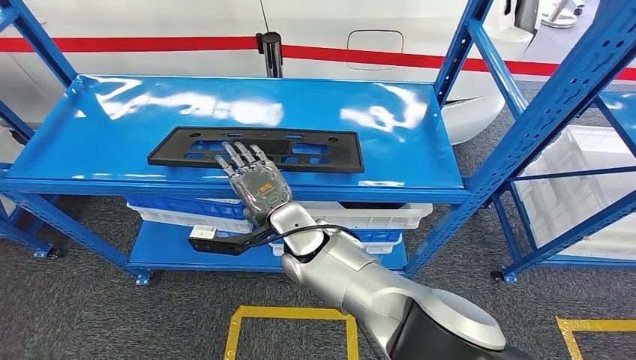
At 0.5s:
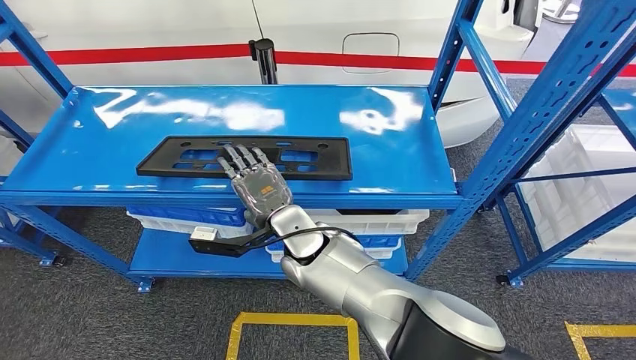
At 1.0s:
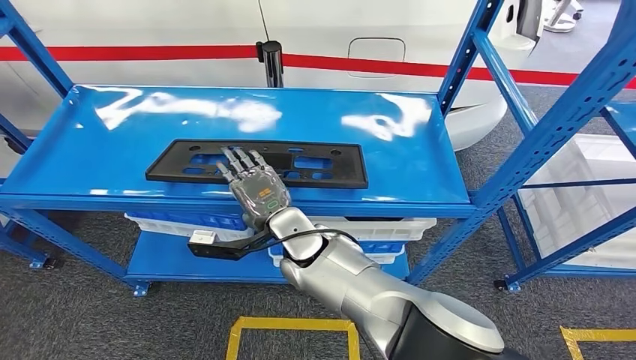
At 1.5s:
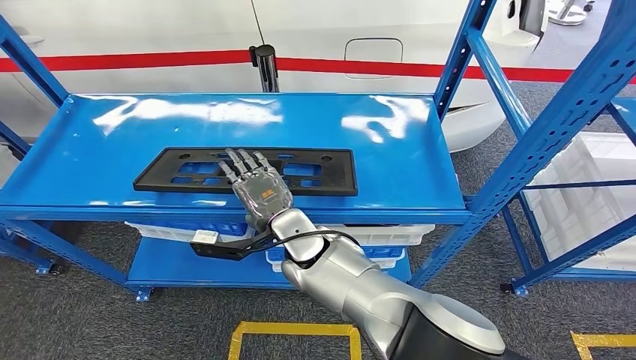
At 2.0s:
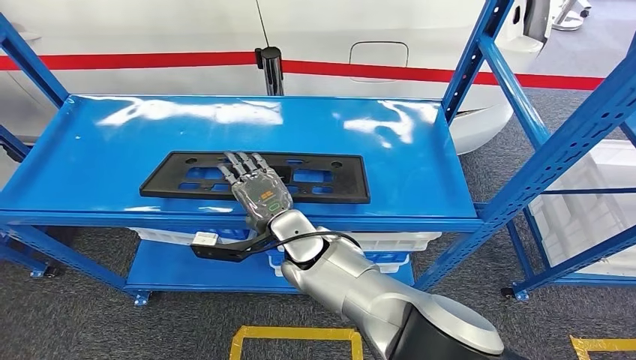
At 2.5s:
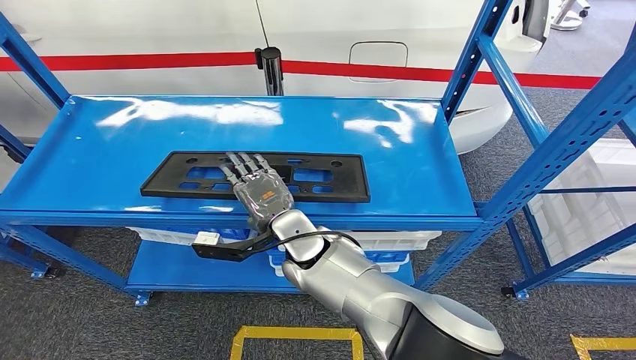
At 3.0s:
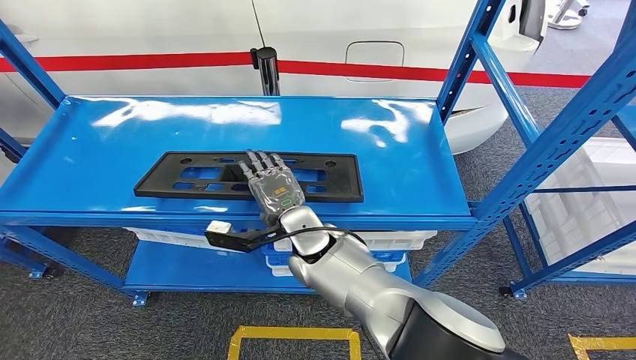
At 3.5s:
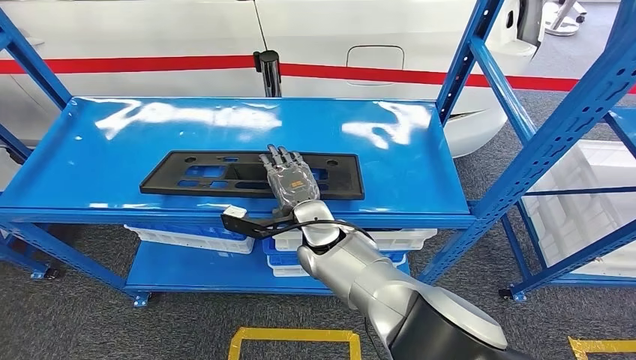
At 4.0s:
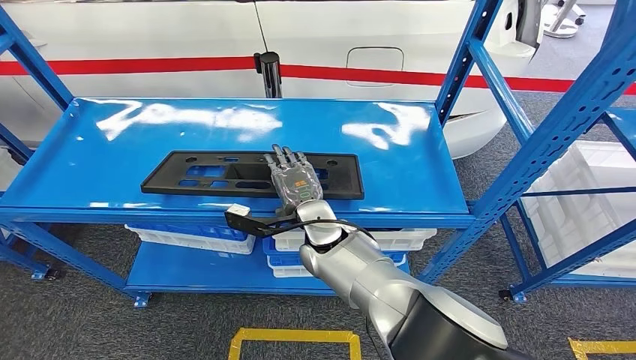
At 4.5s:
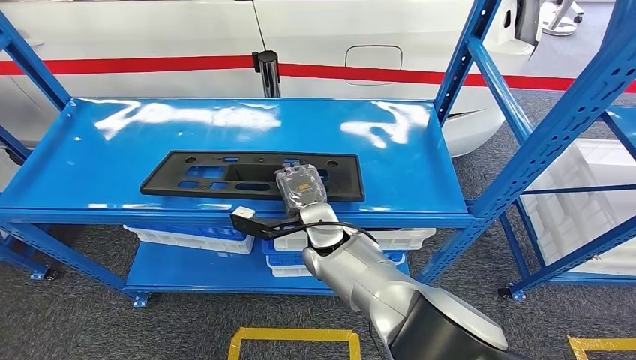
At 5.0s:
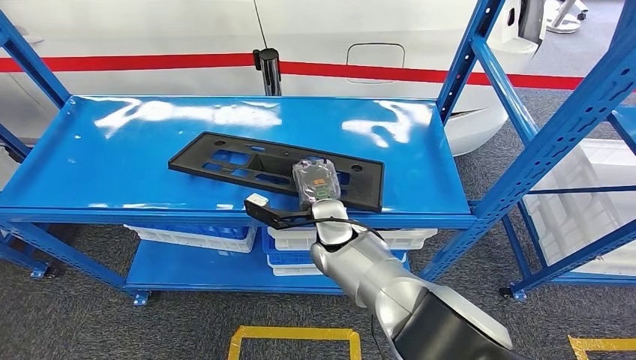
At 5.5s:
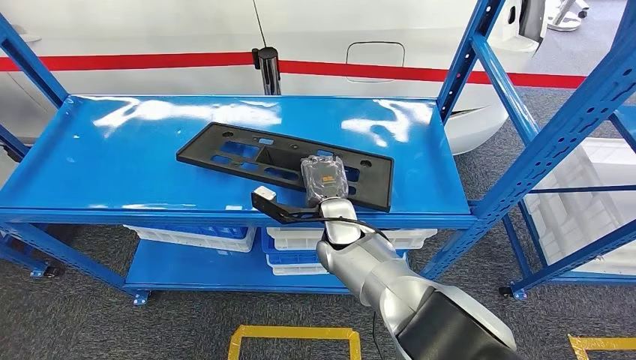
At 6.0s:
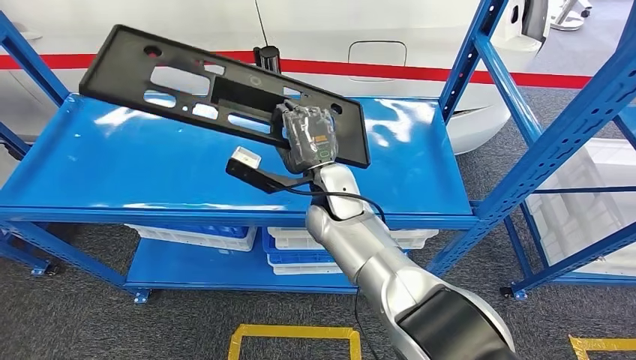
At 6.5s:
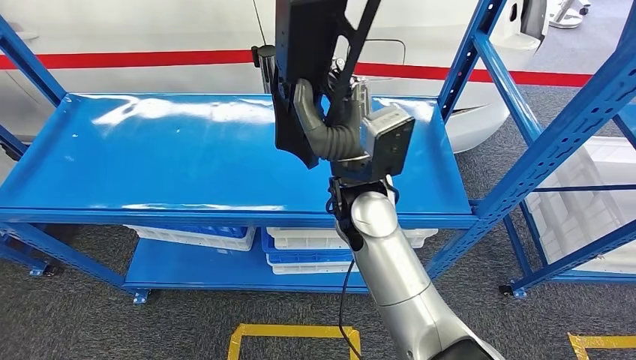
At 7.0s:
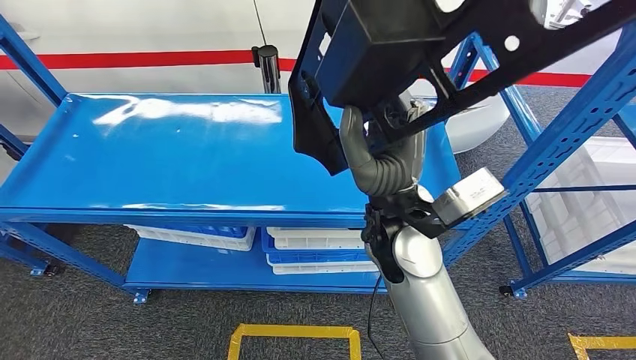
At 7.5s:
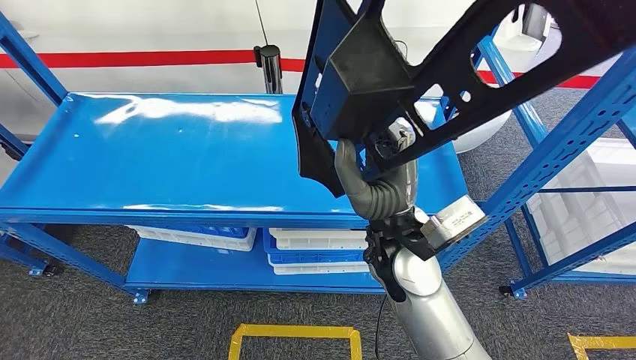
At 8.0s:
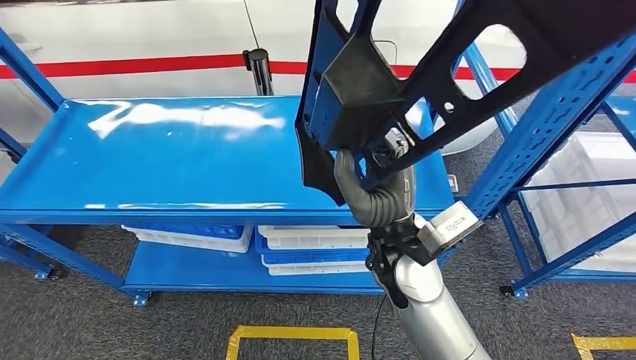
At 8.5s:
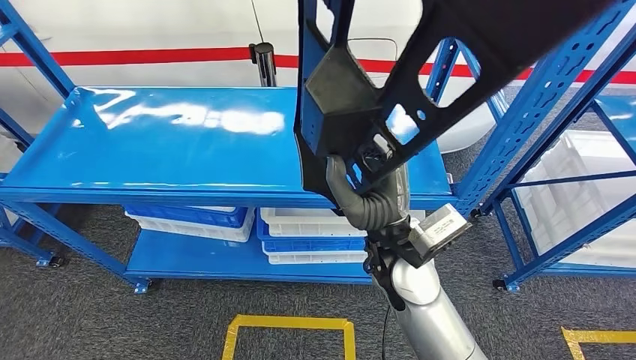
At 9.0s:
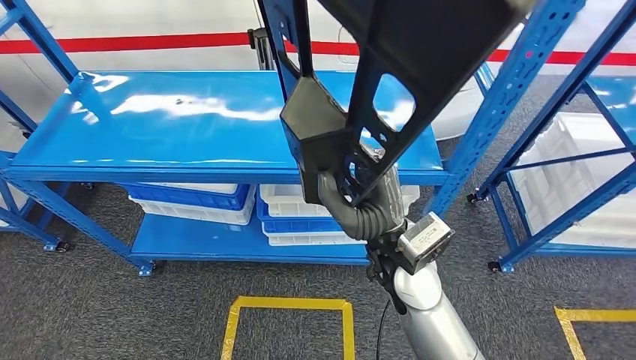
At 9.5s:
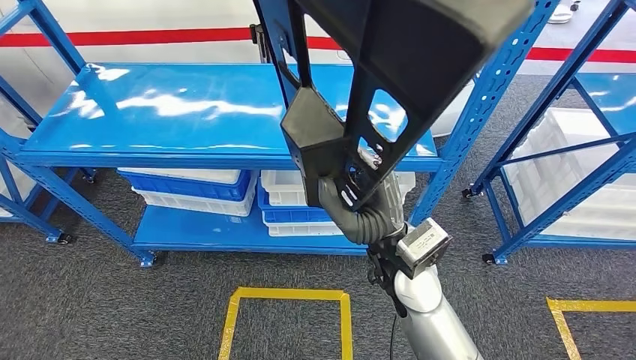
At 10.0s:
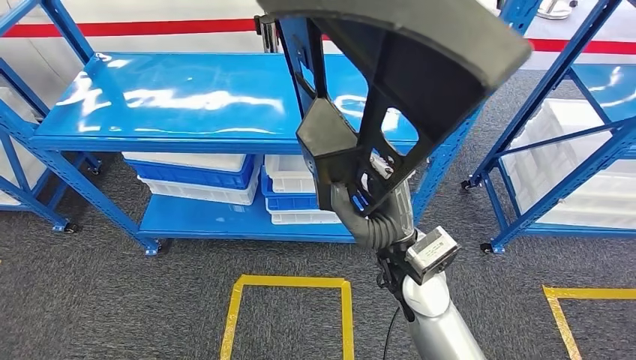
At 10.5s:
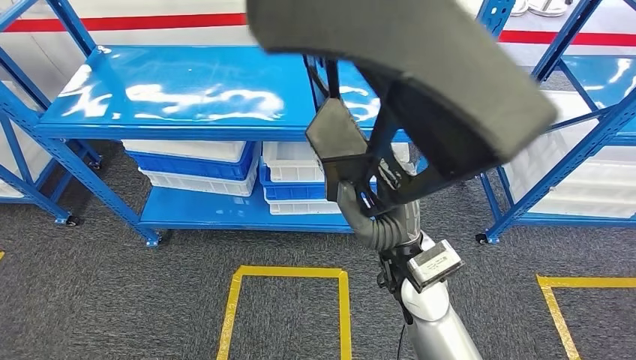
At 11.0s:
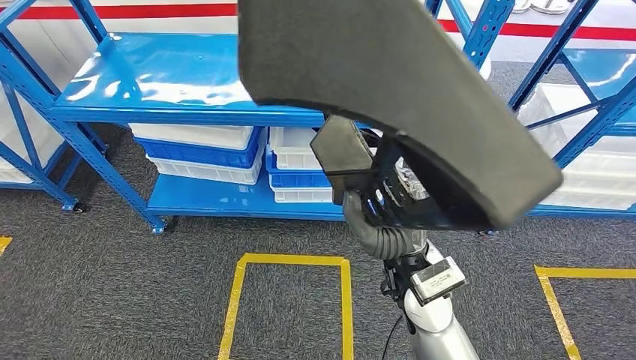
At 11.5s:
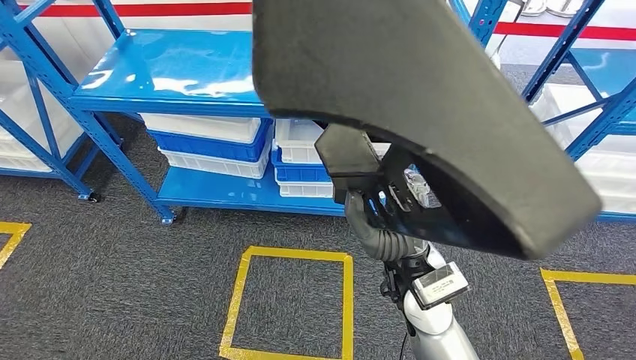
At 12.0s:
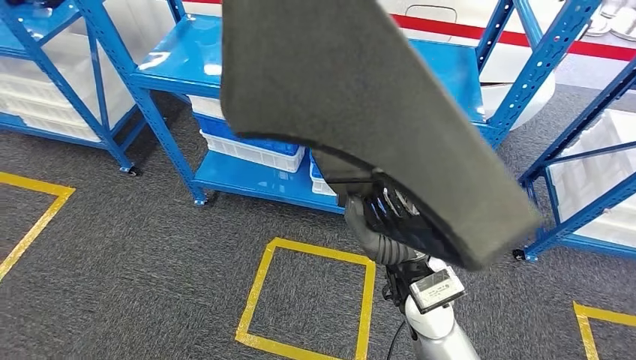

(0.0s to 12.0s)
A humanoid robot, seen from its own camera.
Step, 0.0s - 9.0s: Pick up the large material from the shelf.

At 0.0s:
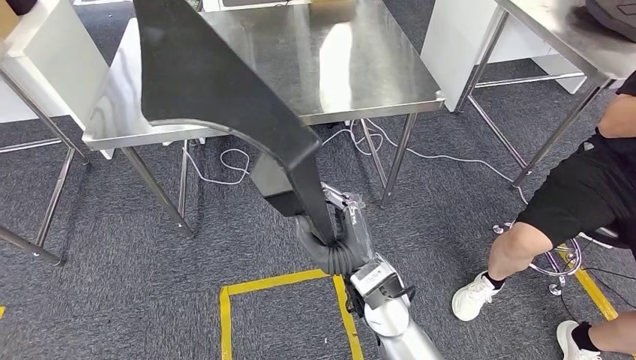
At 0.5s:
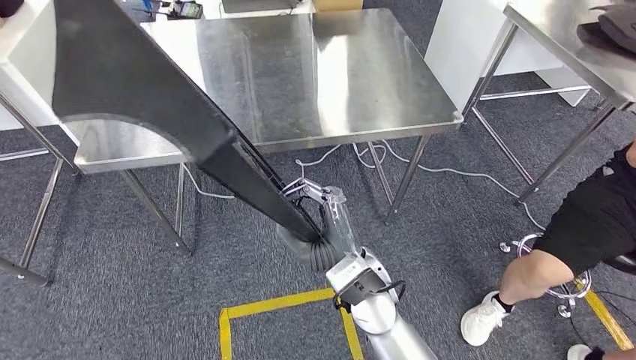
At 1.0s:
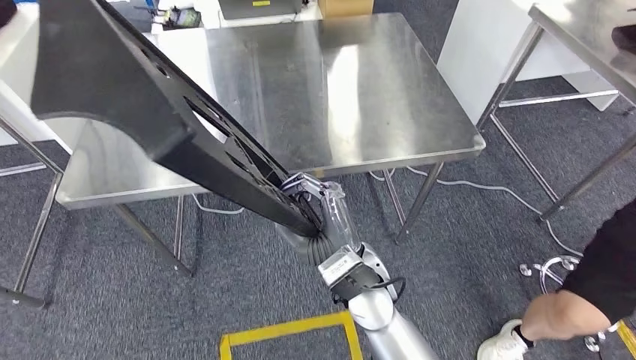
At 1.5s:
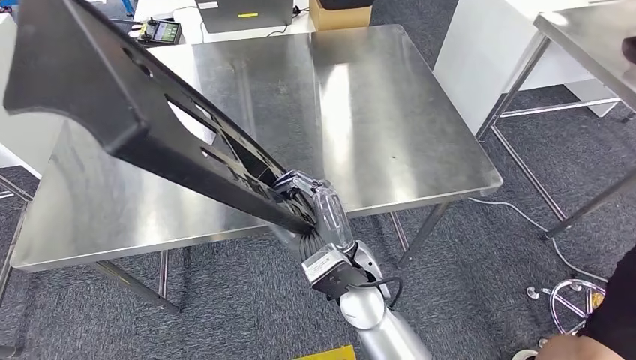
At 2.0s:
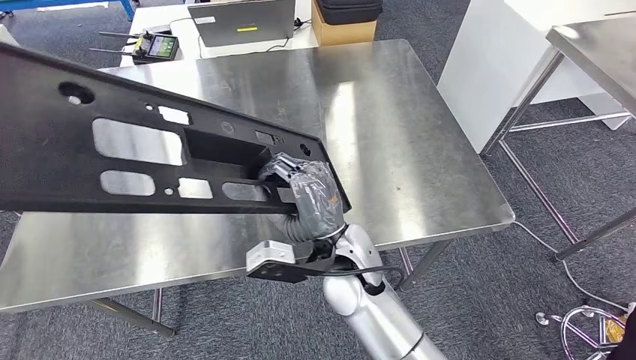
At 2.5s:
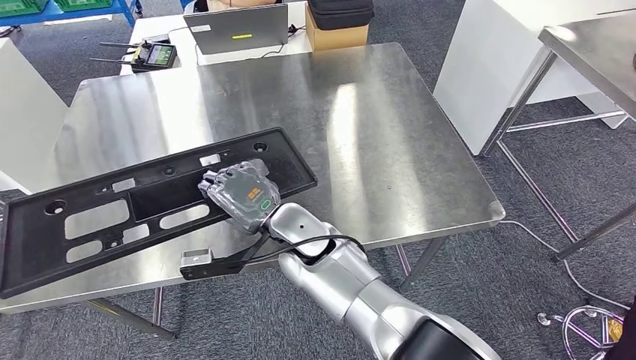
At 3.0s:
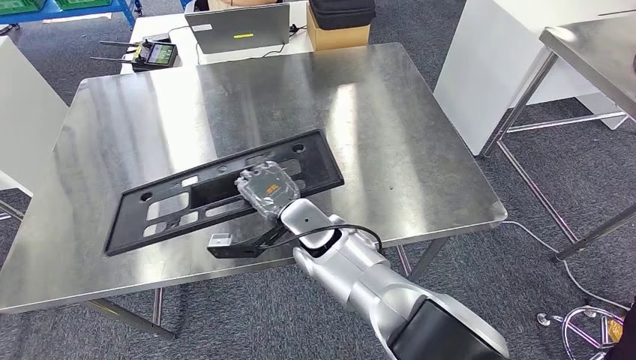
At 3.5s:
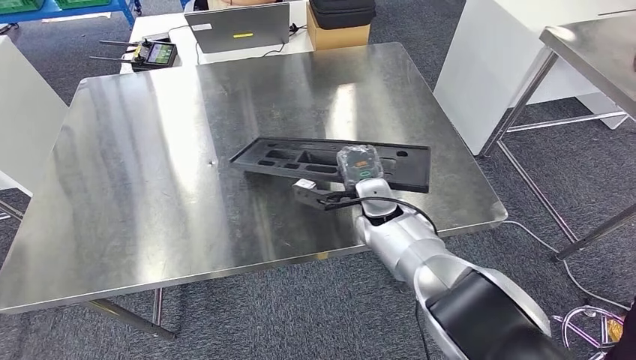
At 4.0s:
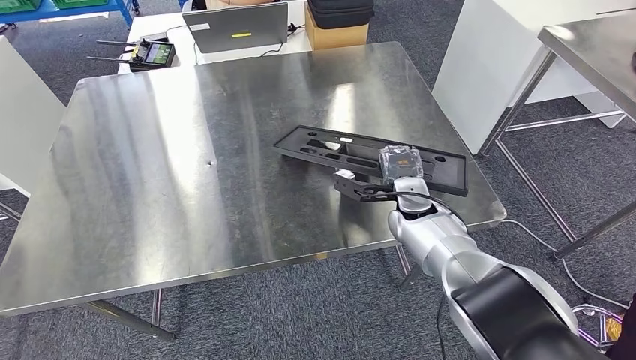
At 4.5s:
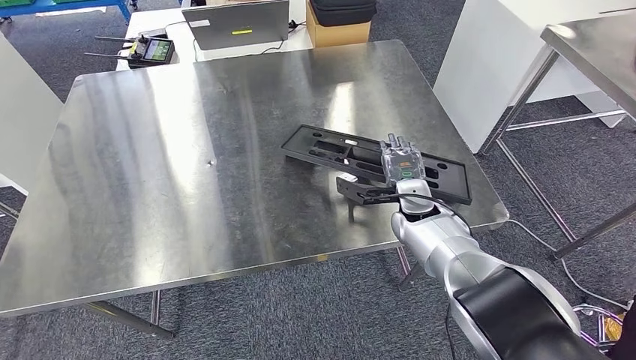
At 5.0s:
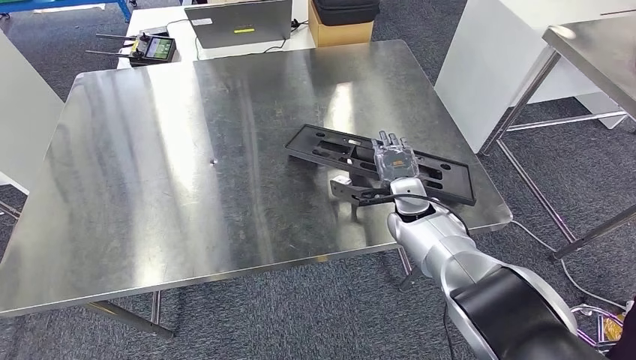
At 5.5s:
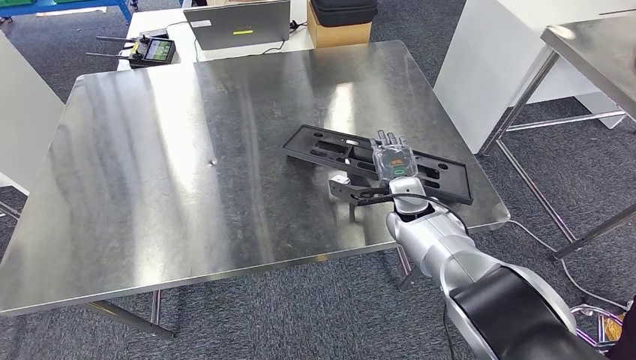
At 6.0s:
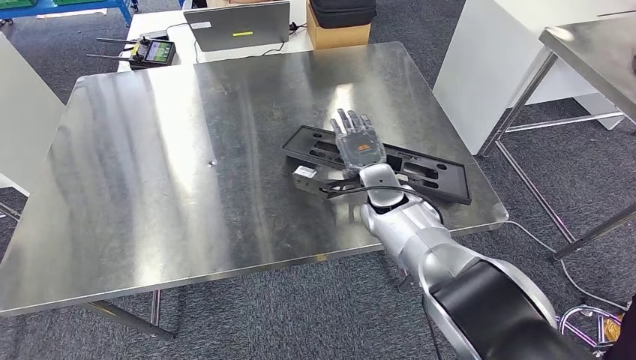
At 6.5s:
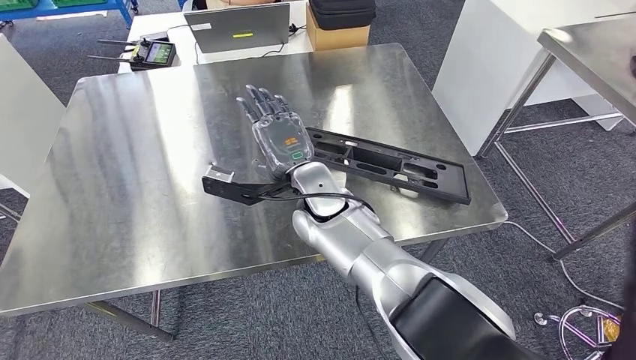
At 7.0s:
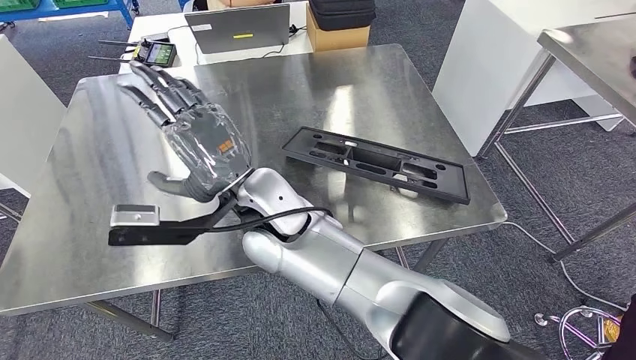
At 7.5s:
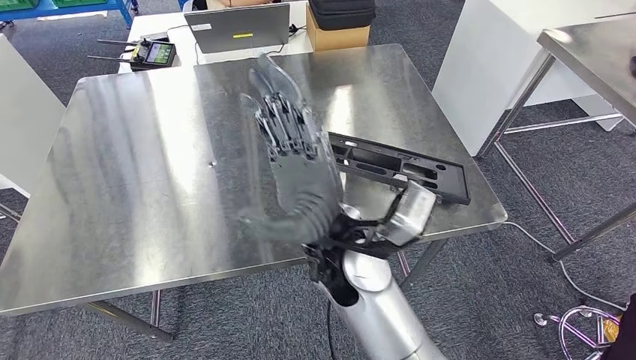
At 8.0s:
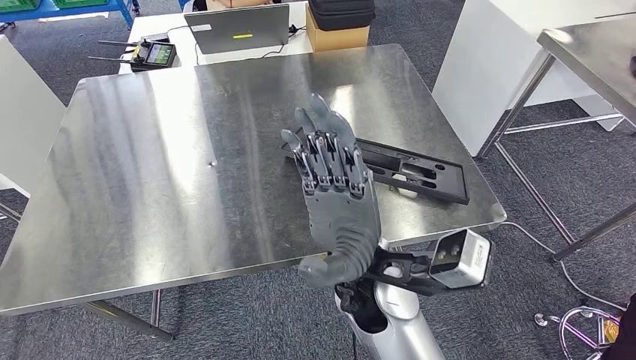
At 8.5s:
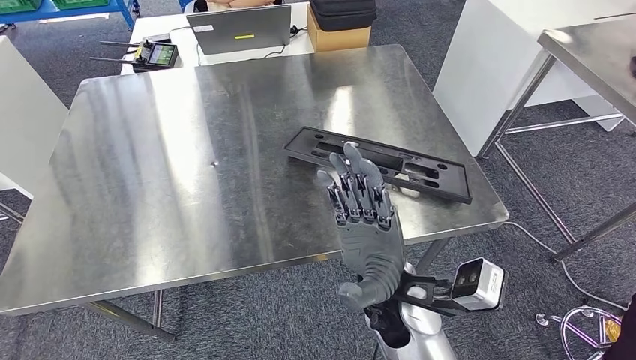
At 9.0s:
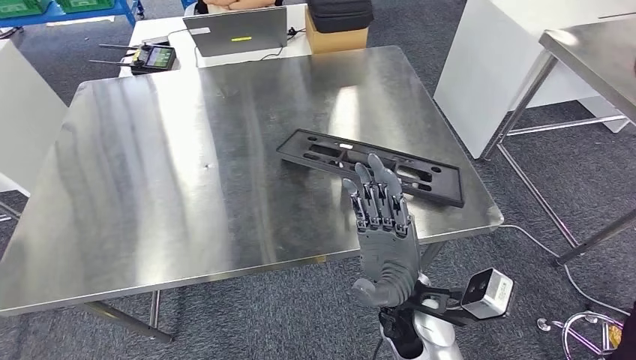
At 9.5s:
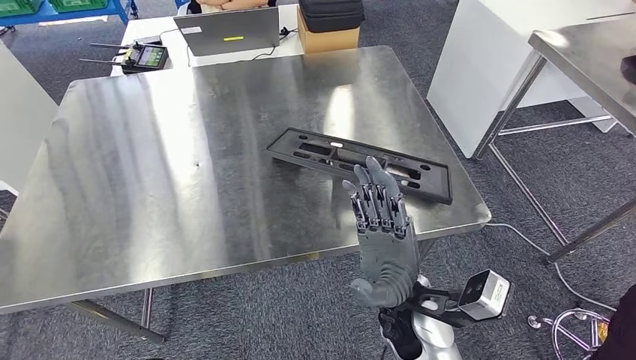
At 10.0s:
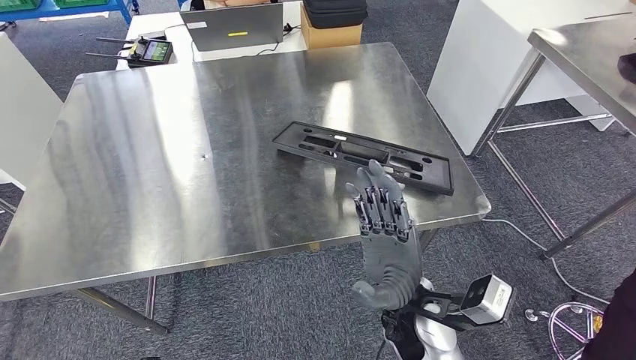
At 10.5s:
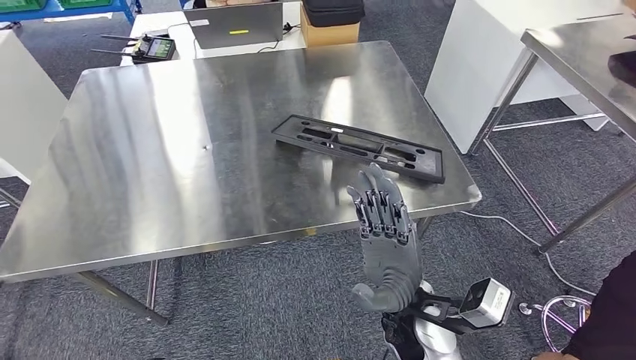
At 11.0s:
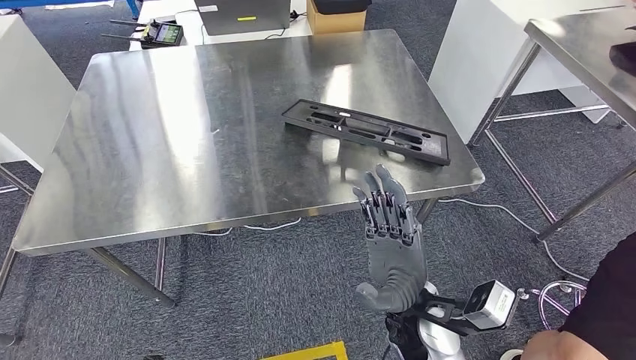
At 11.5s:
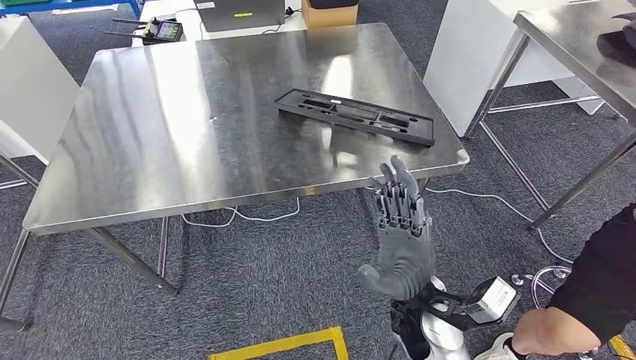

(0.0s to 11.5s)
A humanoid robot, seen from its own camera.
4.0s - 6.0s: The right hand is displaced to the left by approximately 5 cm.
6.0s - 7.5s: The right hand is displaced backward, to the left and upward by roughly 20 cm.
